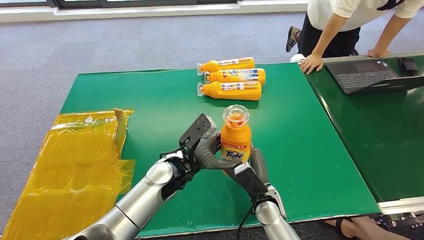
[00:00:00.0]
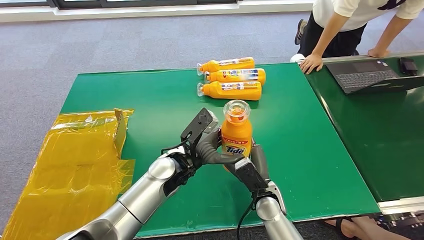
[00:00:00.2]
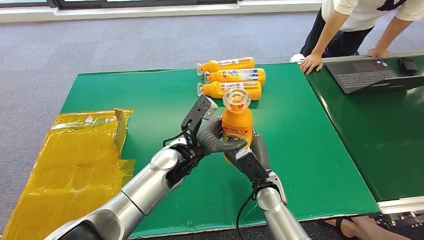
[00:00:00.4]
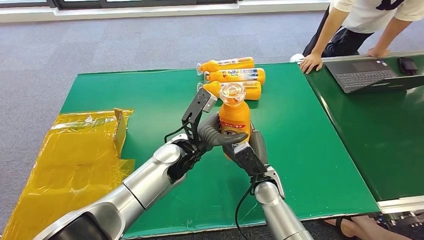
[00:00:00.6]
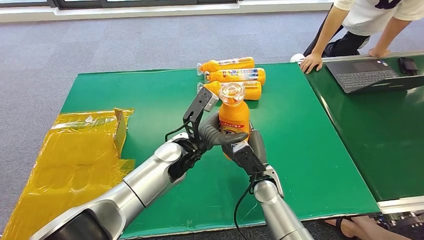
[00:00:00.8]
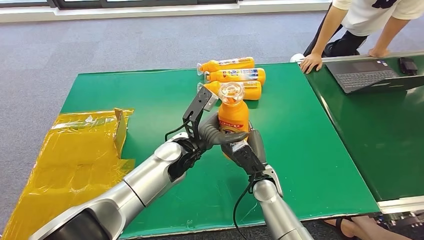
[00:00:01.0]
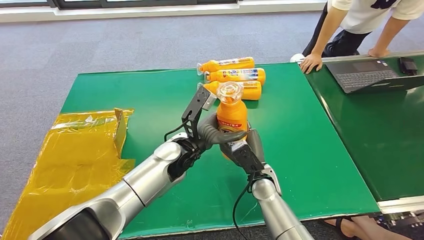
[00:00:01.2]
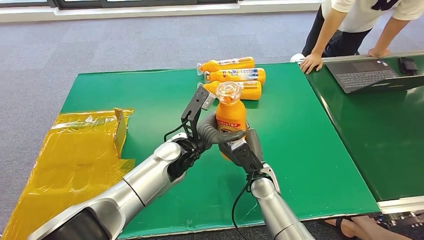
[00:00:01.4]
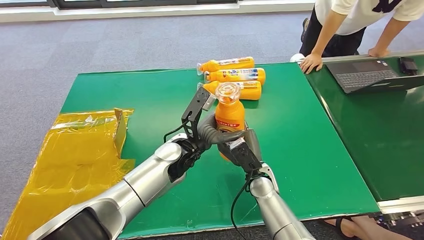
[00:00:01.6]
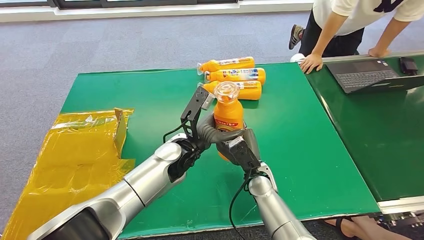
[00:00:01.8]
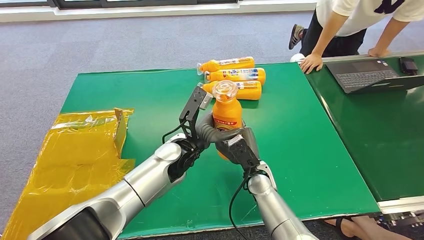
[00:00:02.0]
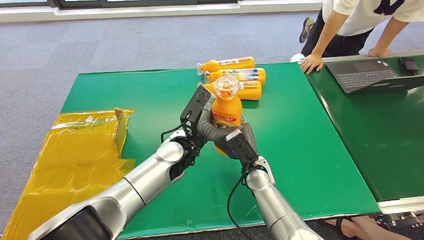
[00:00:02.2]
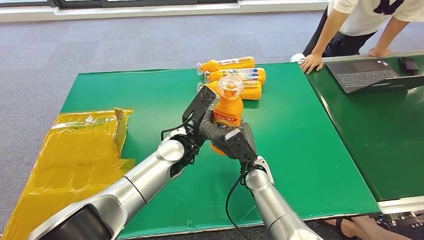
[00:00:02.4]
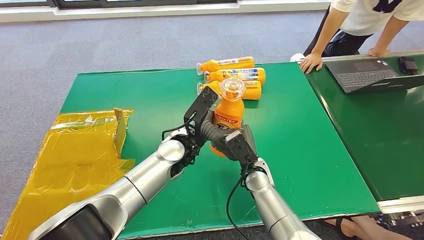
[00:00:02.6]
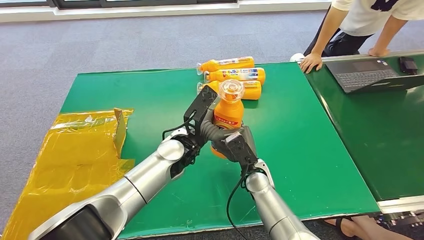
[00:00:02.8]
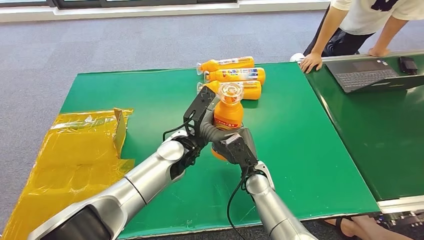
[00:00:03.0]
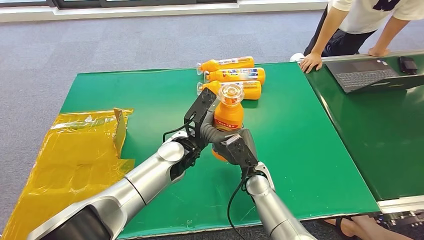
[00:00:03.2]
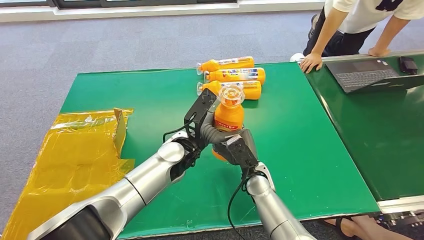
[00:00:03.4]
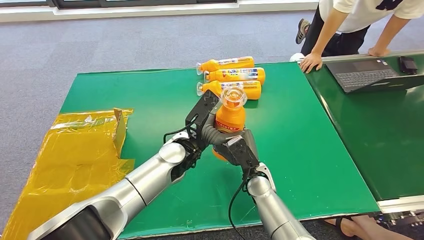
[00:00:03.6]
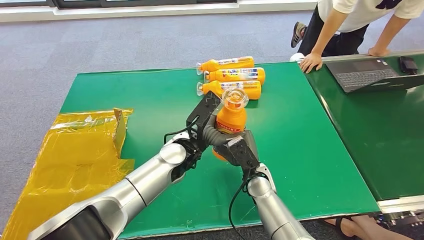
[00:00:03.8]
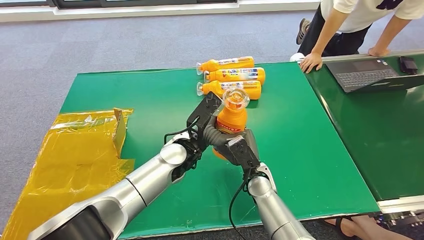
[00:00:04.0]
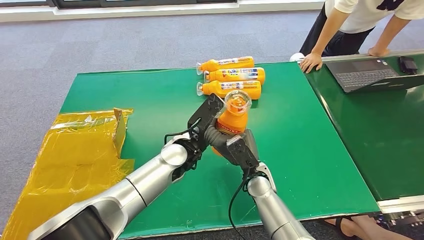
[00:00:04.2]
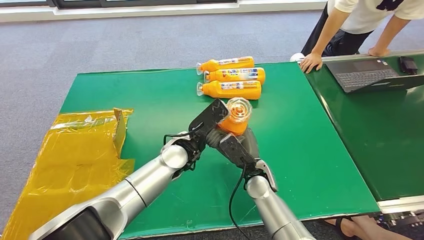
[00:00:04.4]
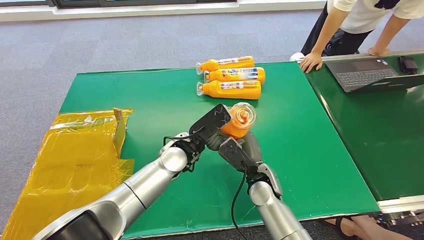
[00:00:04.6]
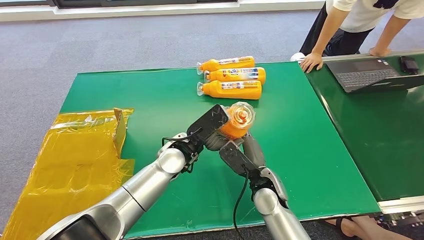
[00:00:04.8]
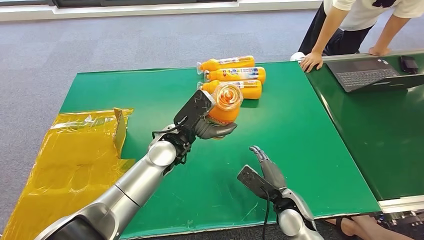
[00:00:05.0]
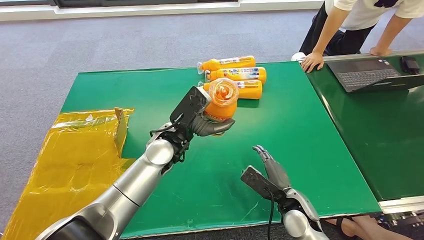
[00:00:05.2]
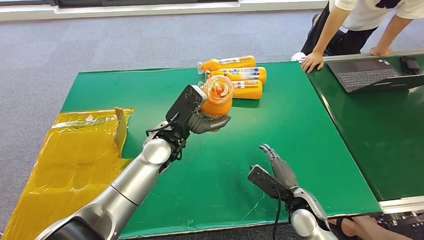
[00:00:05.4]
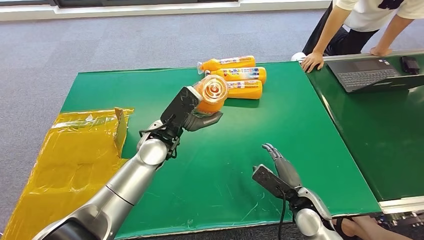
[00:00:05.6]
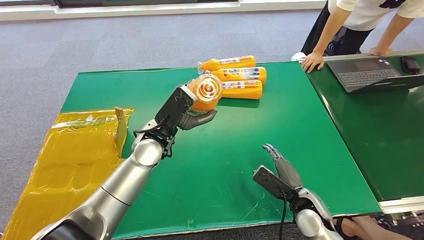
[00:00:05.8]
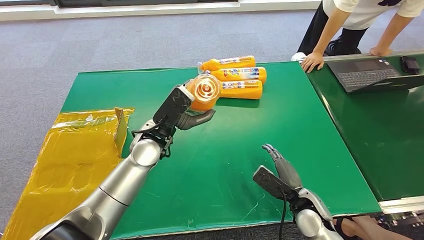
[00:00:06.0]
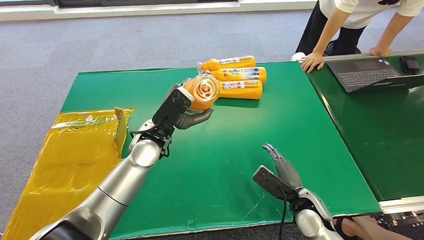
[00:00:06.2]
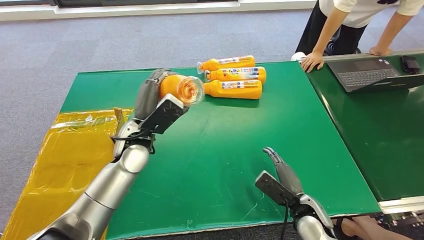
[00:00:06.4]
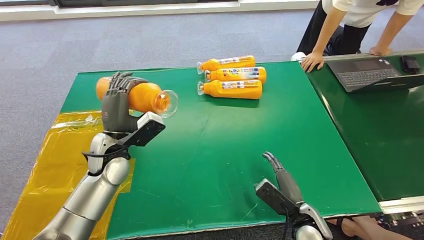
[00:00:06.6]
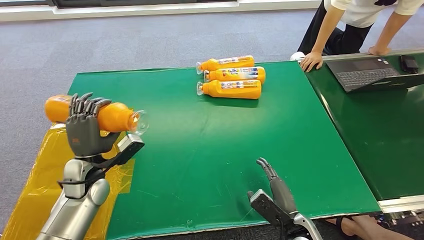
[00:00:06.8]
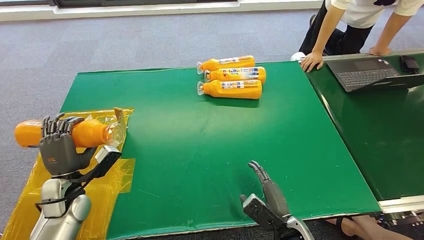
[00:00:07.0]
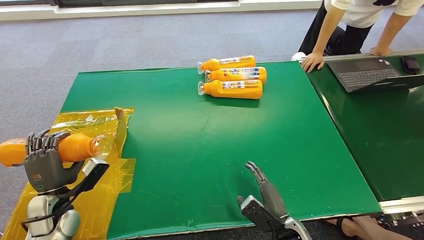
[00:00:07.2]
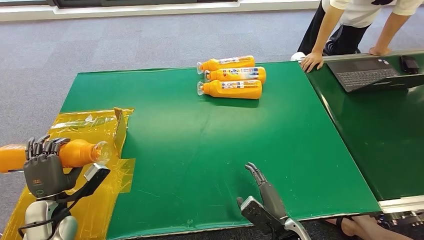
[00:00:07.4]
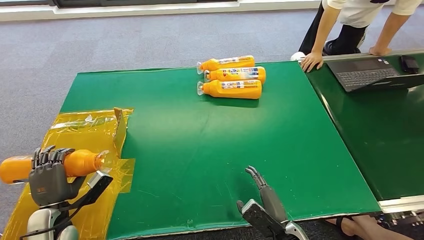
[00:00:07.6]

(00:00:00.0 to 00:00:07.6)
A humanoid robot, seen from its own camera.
Step, 00:00:00.0 - 00:00:07.6: Turn the bottle to the front side.
00:00:00.0 - 00:00:01.6: The right hand travels forward by about 5 cm, while the left hand ends up roughly 5 cm from where it was.
00:00:01.6 - 00:00:03.0: The hands stay close to where they were, moving slightly.
00:00:04.6 - 00:00:06.0: The right hand heads to the right and backward, covering about 15 cm; the left hand heads to the left, covering some 5 cm.
00:00:06.0 - 00:00:07.6: The right hand goes about 10 cm backward and to the left, while the left hand goes about 35 cm to the left, backward and downward.
